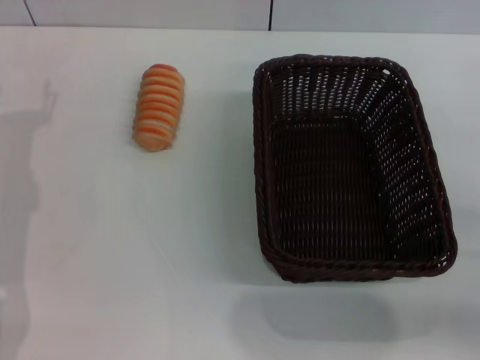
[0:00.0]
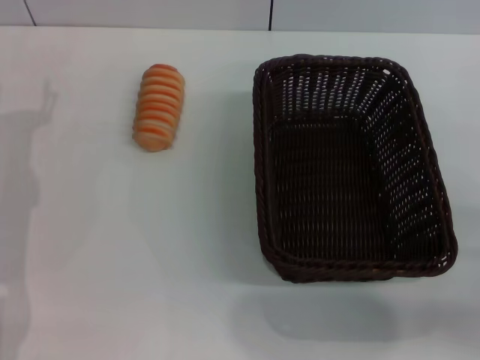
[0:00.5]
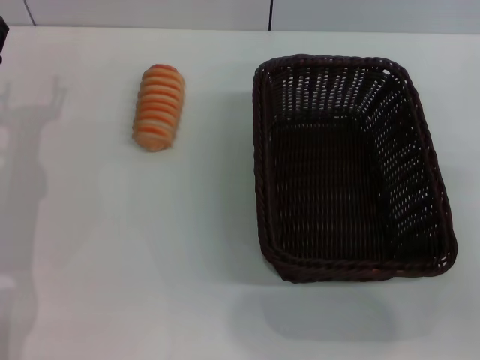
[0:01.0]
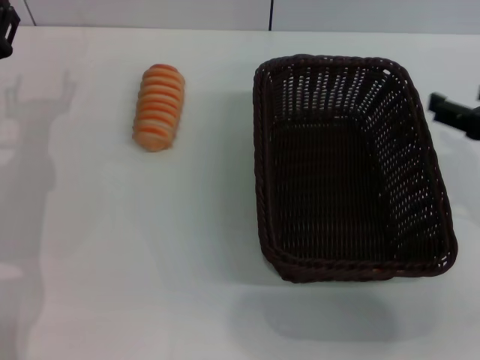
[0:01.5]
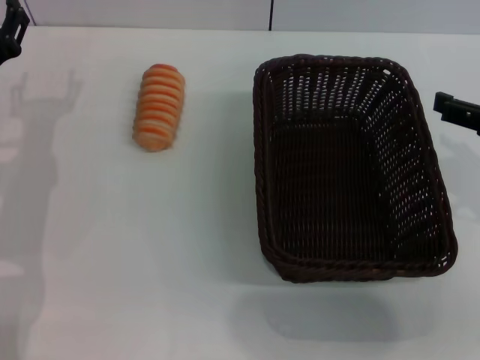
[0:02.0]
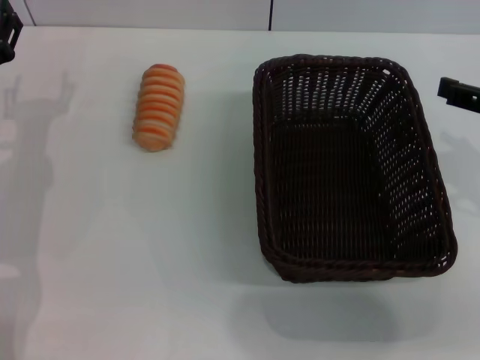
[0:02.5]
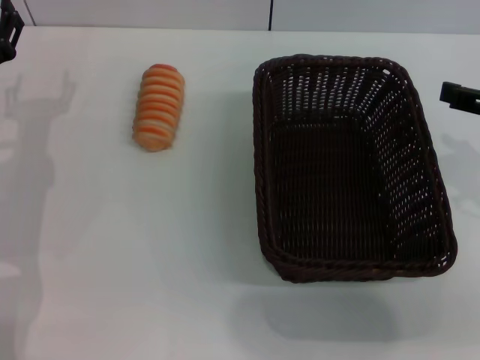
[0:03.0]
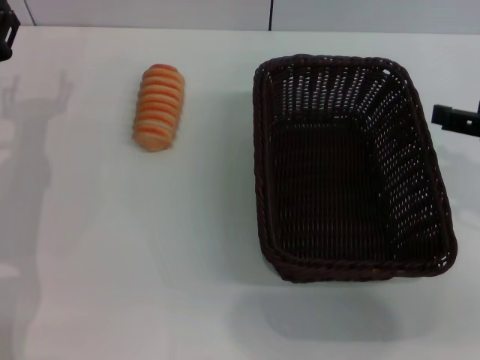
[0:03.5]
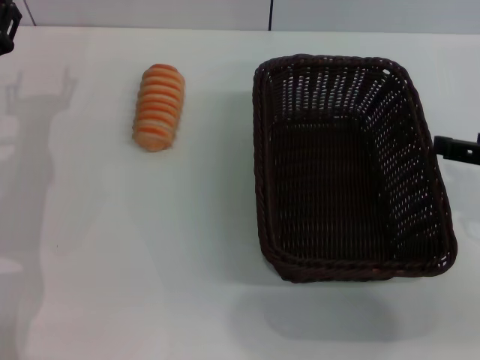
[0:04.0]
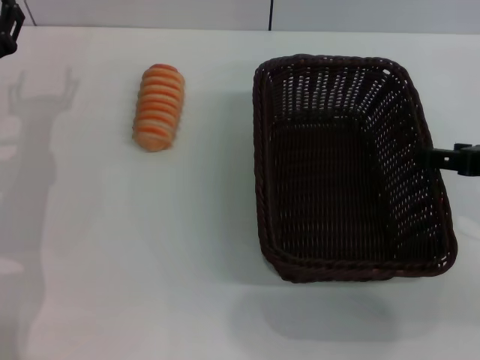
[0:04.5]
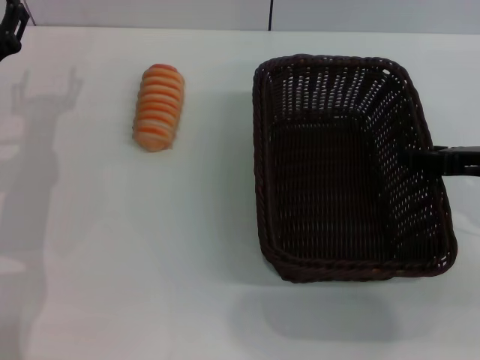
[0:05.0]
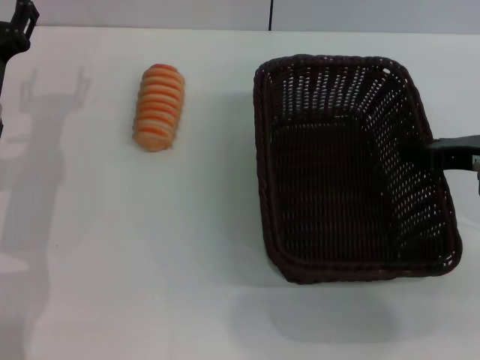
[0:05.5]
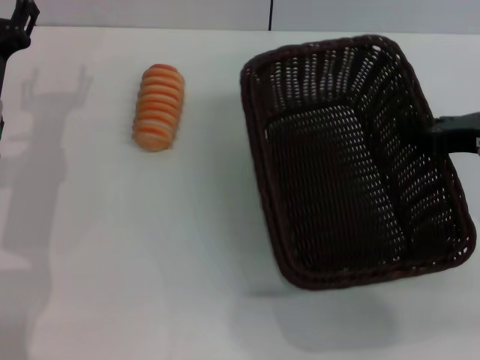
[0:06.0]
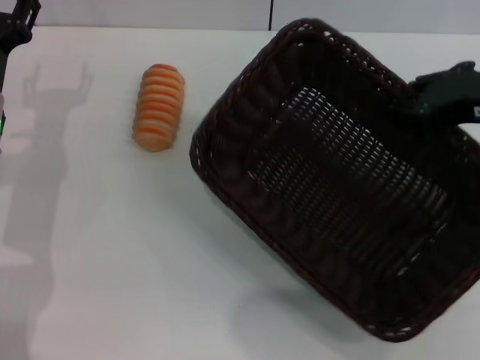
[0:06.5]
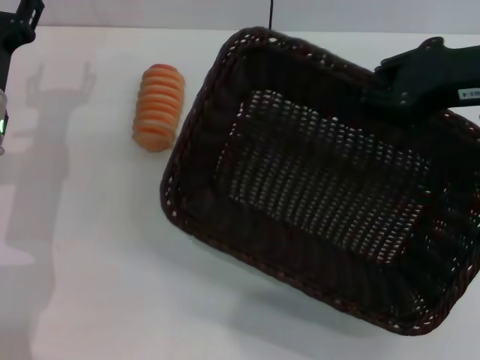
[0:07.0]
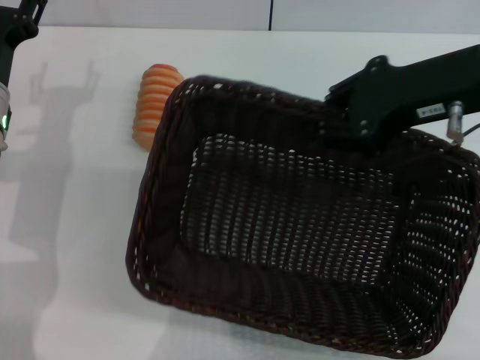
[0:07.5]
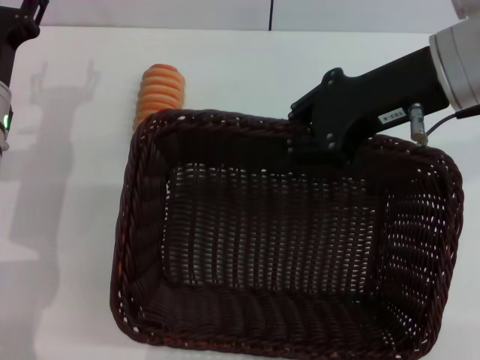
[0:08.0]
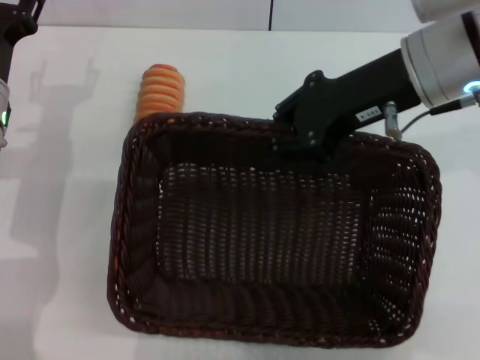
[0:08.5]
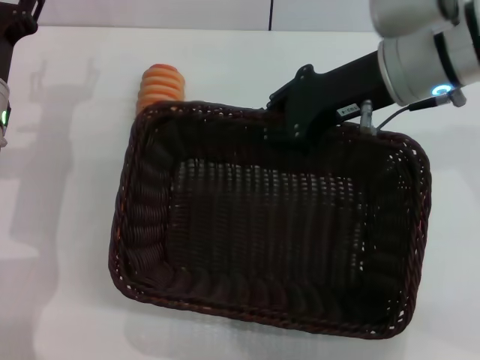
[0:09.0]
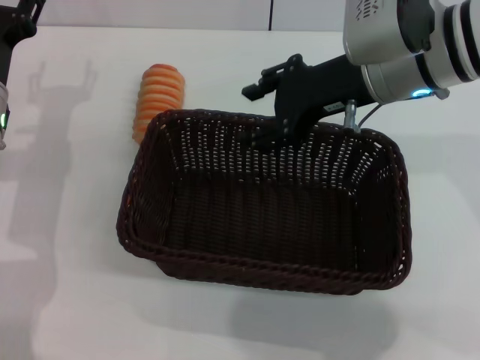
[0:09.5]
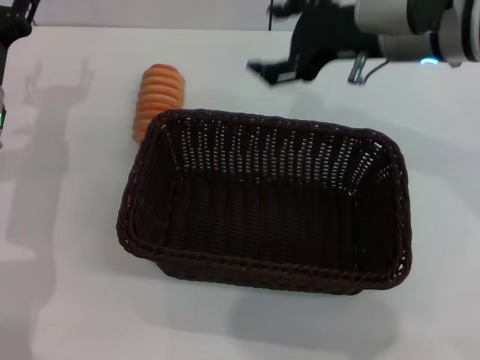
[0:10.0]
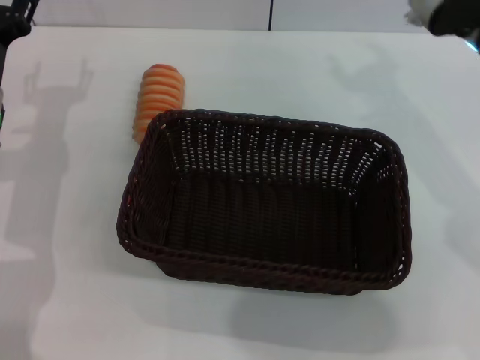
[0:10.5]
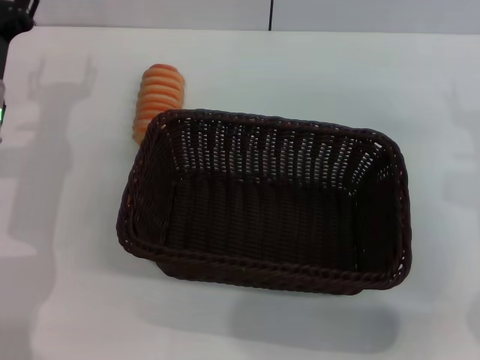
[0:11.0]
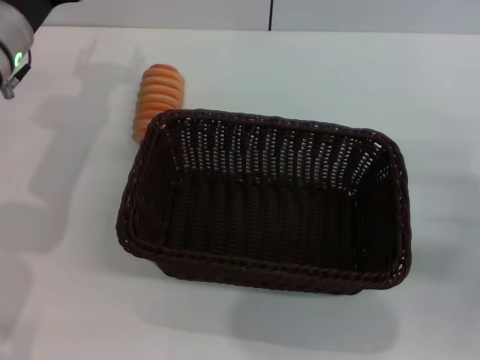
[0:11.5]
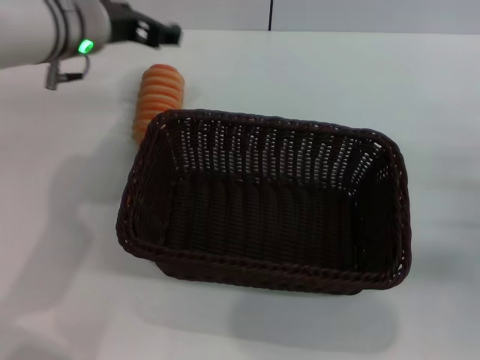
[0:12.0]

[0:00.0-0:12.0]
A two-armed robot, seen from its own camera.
Step, 0.0 to 6.5 s: Pick up the dark basket with the right gripper.
Step, 7.0 to 10.0 s: Place the dark basket in the center of view with the right gripper.
0.0 to 2.0 s: The right gripper is displaced upward and forward by roughly 15 cm.
2.0 to 4.0 s: The grippers make only small movements.
4.0 to 6.0 s: The right gripper is displaced forward by approximately 5 cm, and closes up.
6.0 to 8.0 s: The right gripper shifts about 15 cm to the left and upward.
8.0 to 10.0 s: The right gripper ends up approximately 5 cm from where it was, and opens up.
10.0 to 12.0 s: The left gripper travels upward and to the right by roughly 15 cm. The right gripper goes roughly 25 cm to the right, downward and backward.

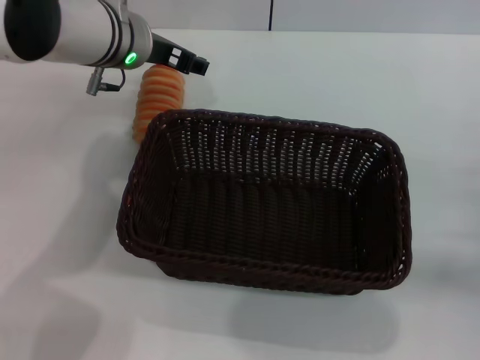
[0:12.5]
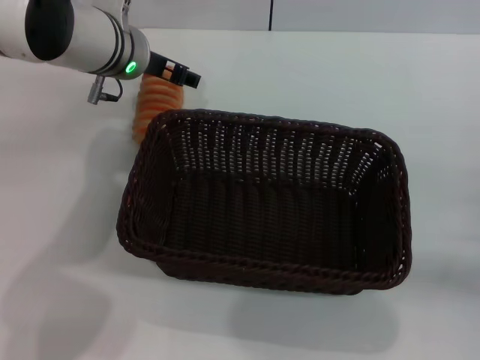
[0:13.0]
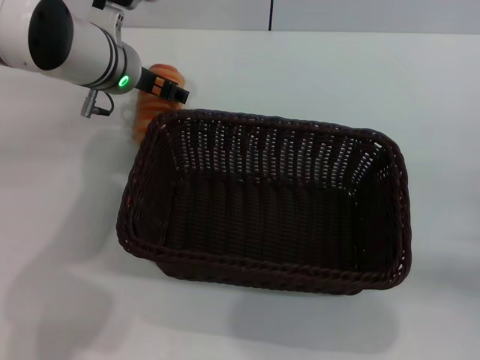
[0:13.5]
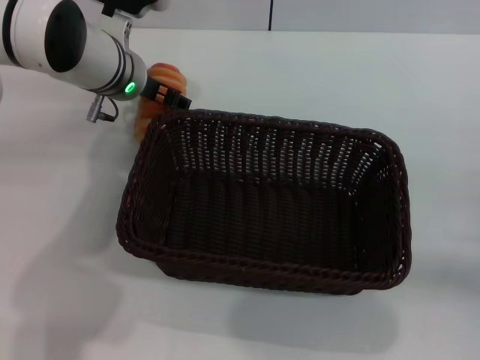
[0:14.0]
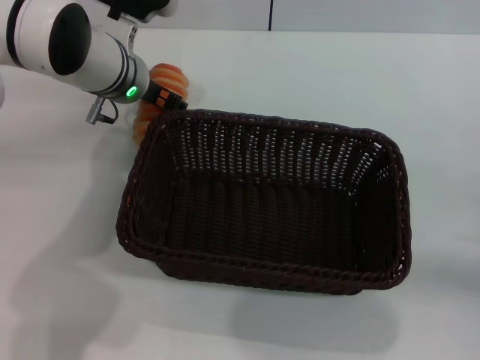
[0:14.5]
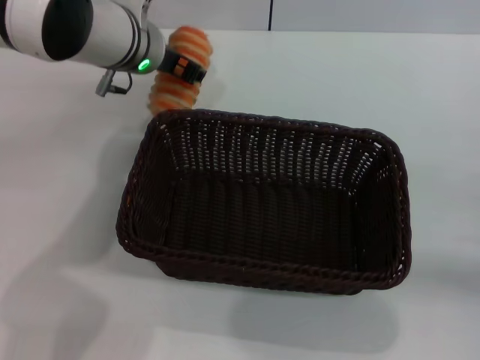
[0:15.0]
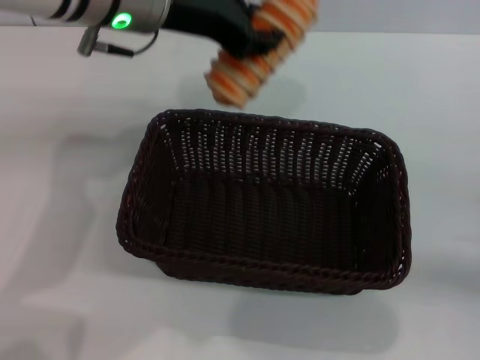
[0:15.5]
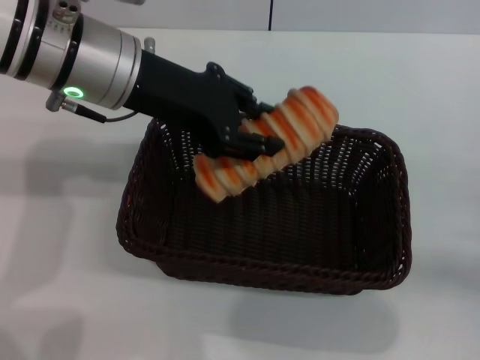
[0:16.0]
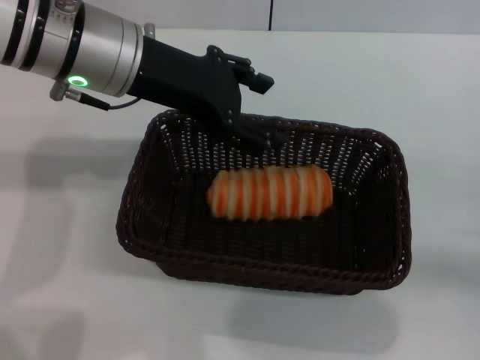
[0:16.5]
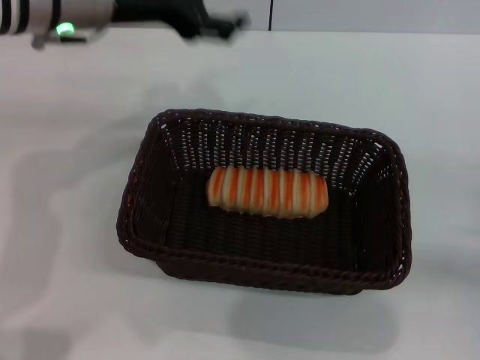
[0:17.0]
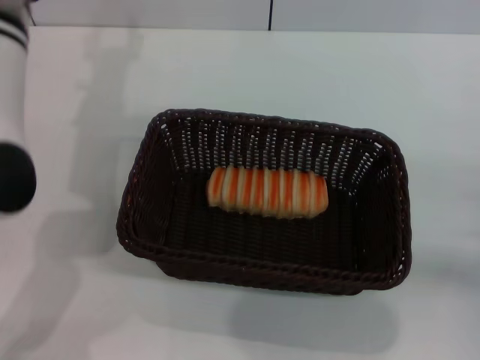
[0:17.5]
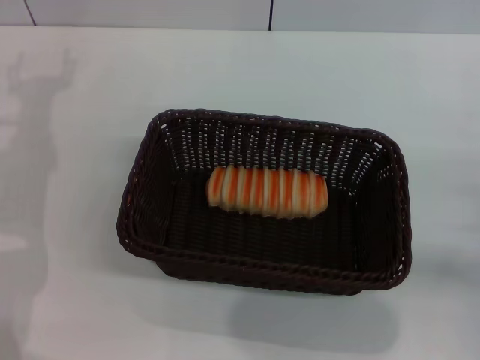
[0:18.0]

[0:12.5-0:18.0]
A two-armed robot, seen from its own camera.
Step, 12.5 to 15.5 s: Pick up the long bread with the left gripper.
Step, 16.0 to 16.5 s: Place the long bread into the dark basket with the left gripper.
12.5 to 14.5 s: The grippers stay close to where they were, moving slightly.
14.5 to 16.0 s: The left gripper shifts approximately 15 cm upward and backward, and closes up.
16.0 to 18.0 s: The left gripper moves to the left and downward, roughly 20 cm, and opens up.

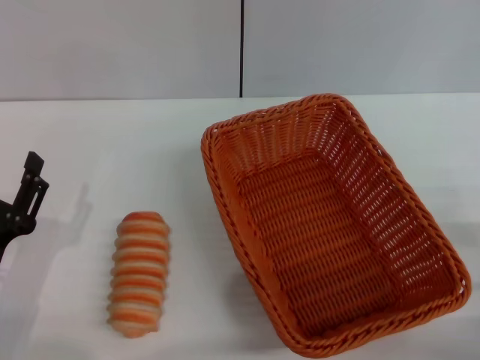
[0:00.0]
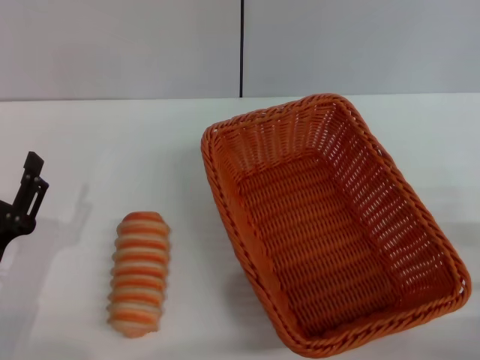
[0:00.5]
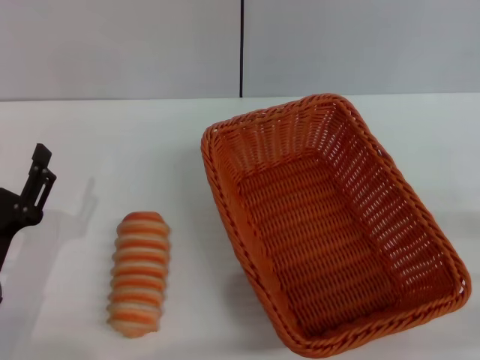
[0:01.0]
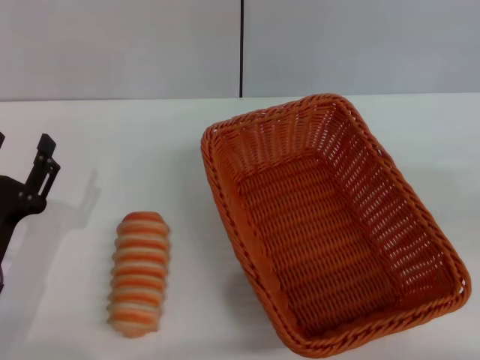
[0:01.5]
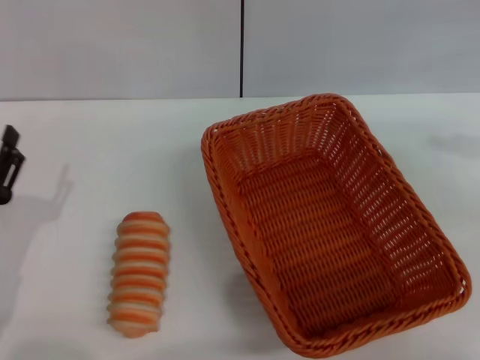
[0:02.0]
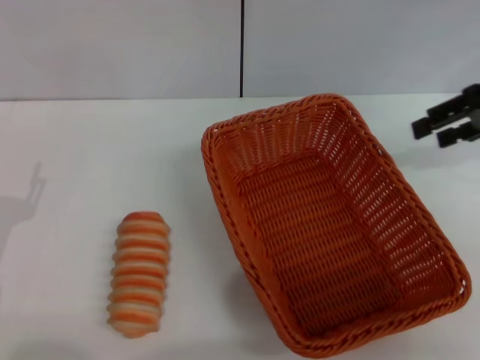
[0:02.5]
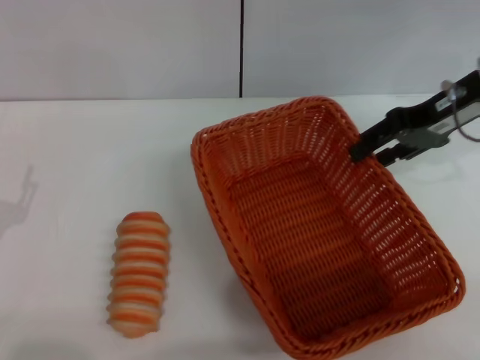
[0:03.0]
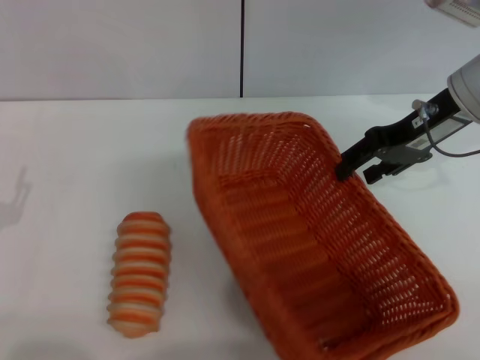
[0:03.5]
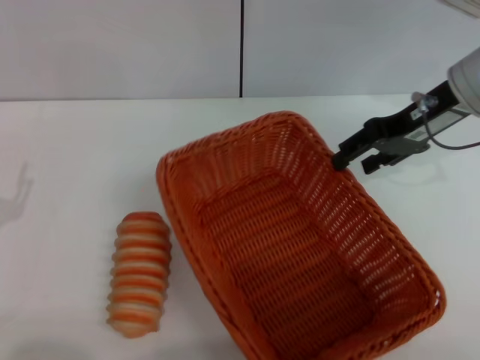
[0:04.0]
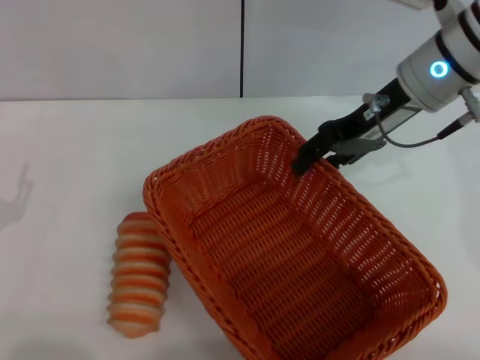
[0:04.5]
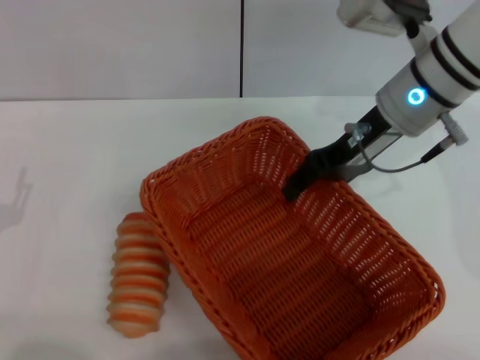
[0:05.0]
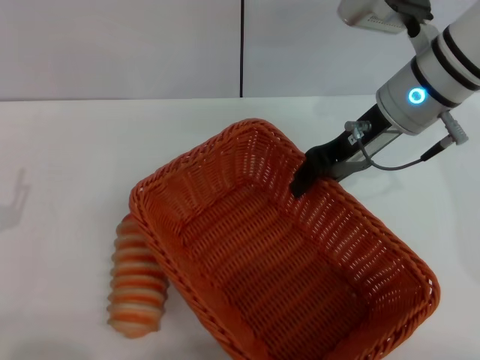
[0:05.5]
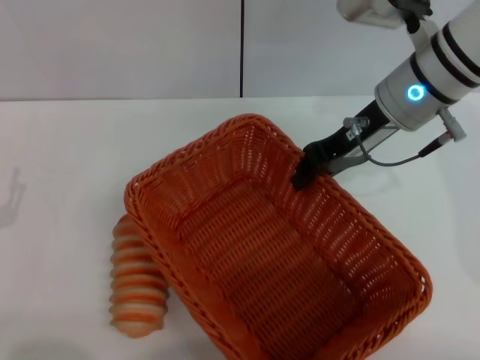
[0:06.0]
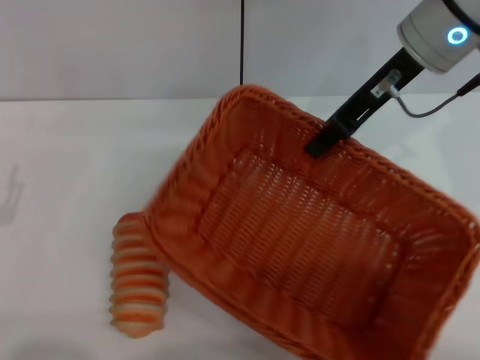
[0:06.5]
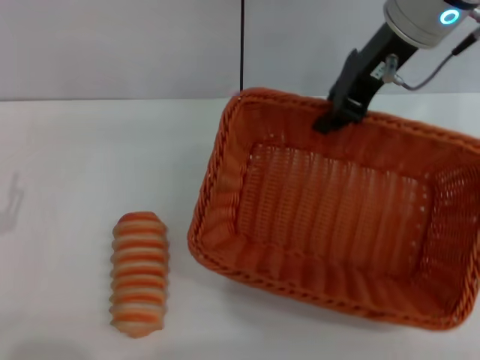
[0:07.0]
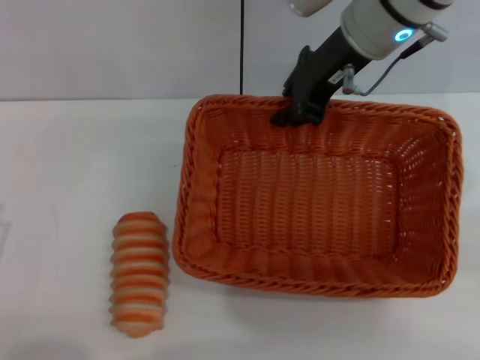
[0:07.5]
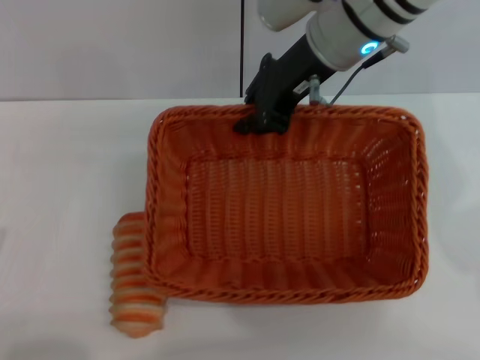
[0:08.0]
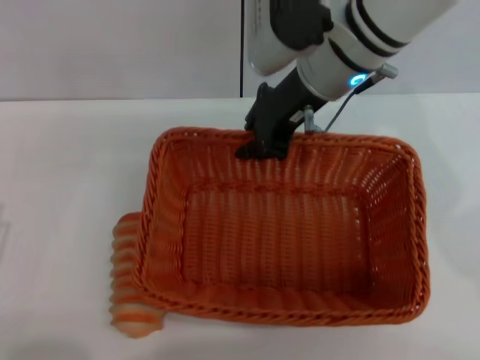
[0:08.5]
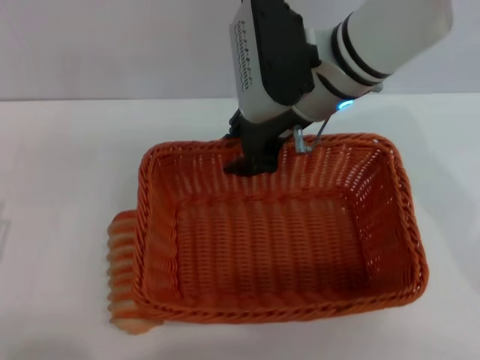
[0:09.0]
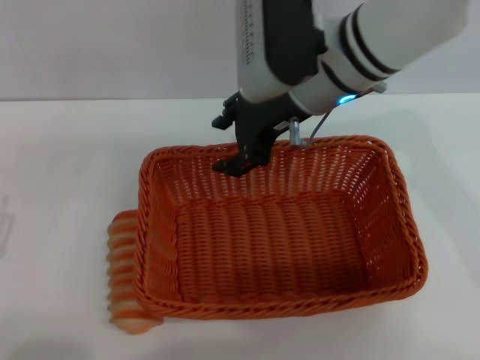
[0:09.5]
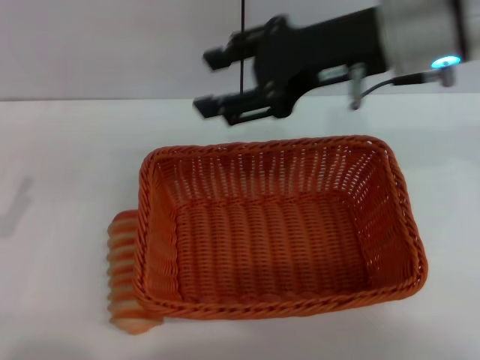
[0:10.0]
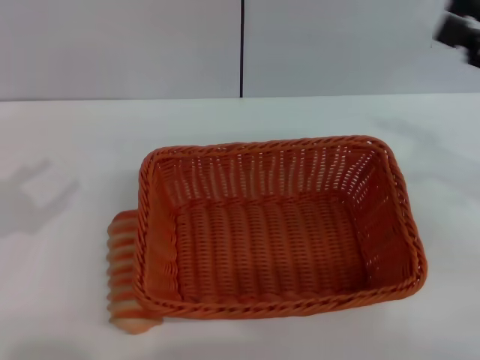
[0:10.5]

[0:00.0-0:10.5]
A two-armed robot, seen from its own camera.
Step, 0.0 to 6.0 s: Pick up the light basket with the right gripper.
Step, 6.5 to 9.5 s: Place the light basket in the center of view with the right gripper.
0.0 to 2.0 s: The right gripper heads upward and forward, covering about 25 cm.
2.0 to 4.0 s: The right gripper shifts about 15 cm to the left and forward.
4.0 to 6.5 s: The right gripper moves to the left and upward, some 10 cm, and closes up.
6.5 to 8.5 s: The right gripper travels to the left by approximately 10 cm. The left gripper goes roughly 5 cm backward.
8.5 to 10.5 s: The left gripper shifts some 15 cm upward, forward and to the left, while the right gripper is displaced to the right and backward by about 30 cm, and opens its fingers.
